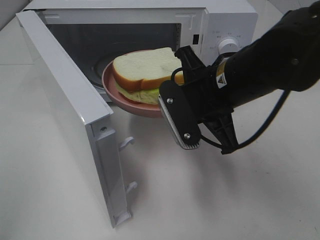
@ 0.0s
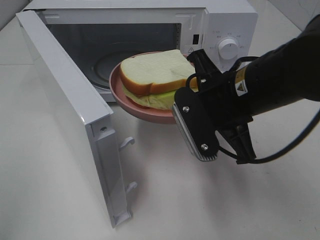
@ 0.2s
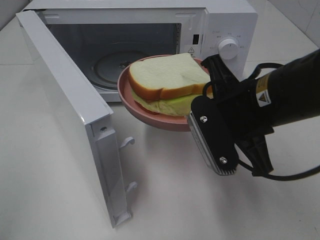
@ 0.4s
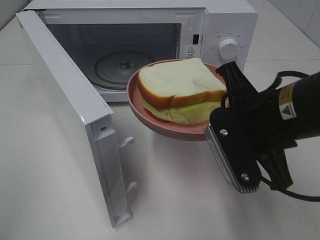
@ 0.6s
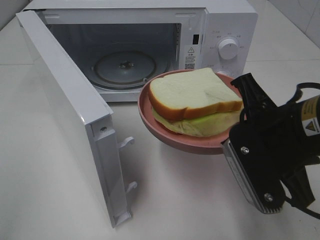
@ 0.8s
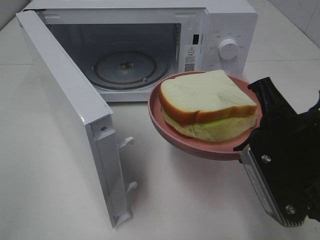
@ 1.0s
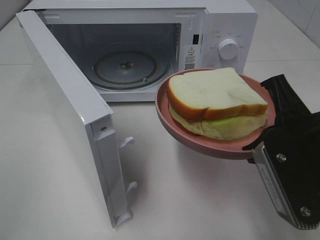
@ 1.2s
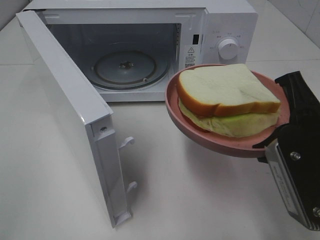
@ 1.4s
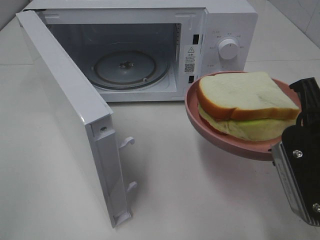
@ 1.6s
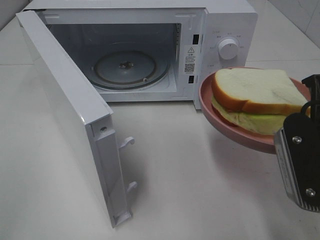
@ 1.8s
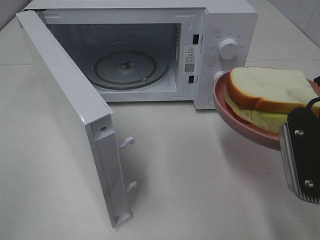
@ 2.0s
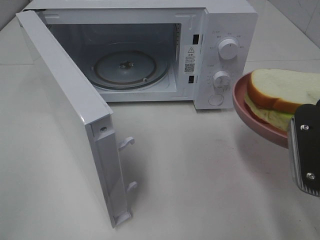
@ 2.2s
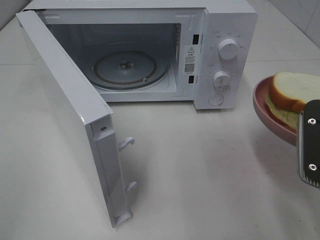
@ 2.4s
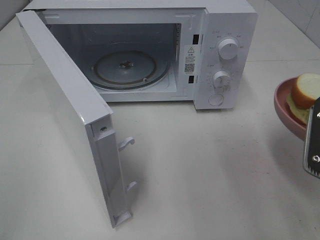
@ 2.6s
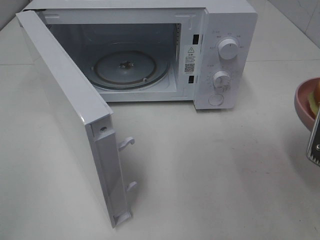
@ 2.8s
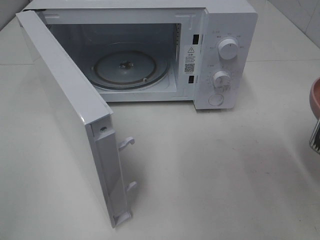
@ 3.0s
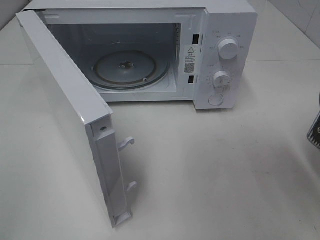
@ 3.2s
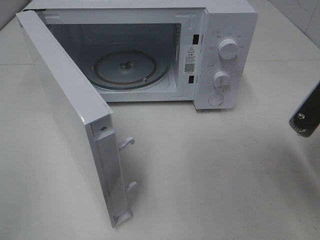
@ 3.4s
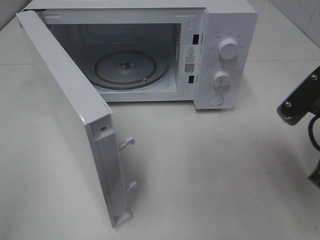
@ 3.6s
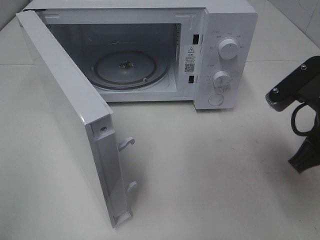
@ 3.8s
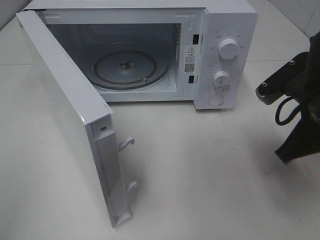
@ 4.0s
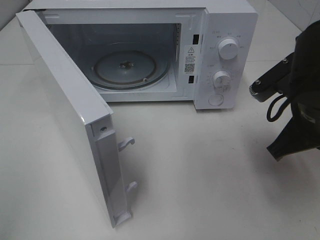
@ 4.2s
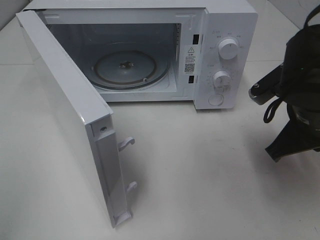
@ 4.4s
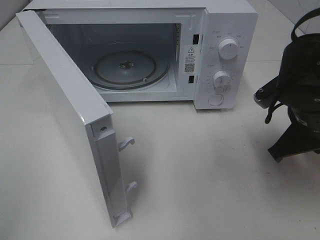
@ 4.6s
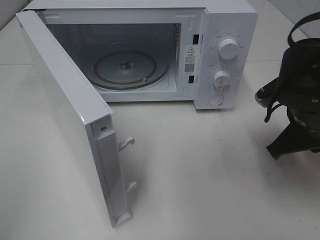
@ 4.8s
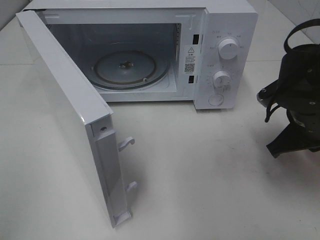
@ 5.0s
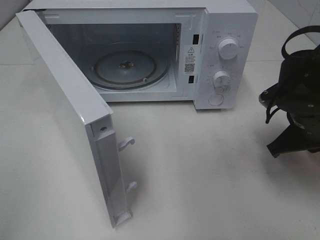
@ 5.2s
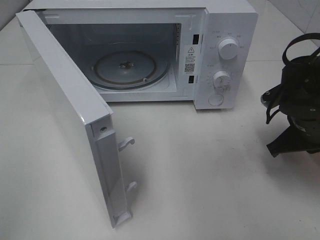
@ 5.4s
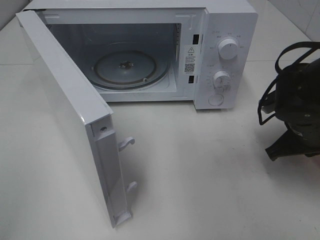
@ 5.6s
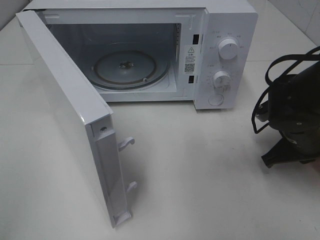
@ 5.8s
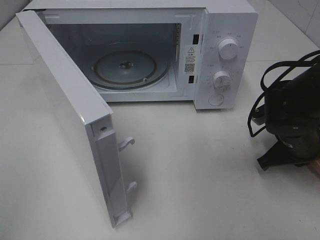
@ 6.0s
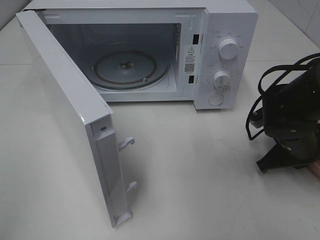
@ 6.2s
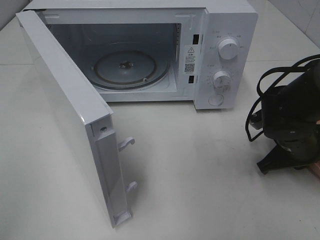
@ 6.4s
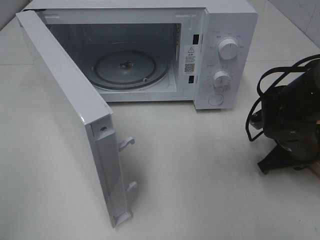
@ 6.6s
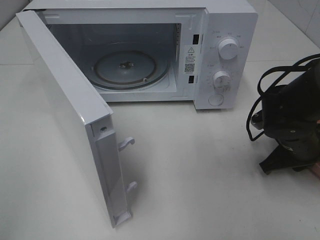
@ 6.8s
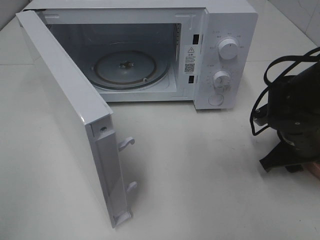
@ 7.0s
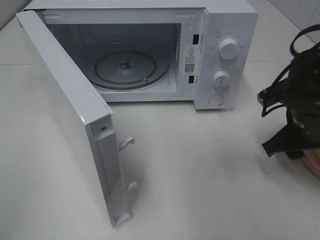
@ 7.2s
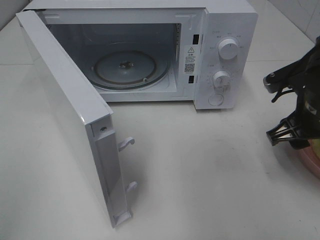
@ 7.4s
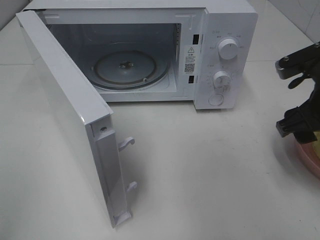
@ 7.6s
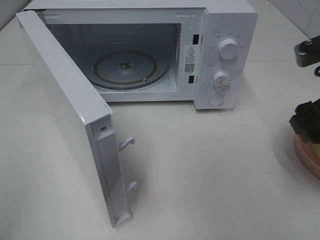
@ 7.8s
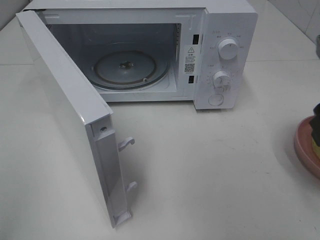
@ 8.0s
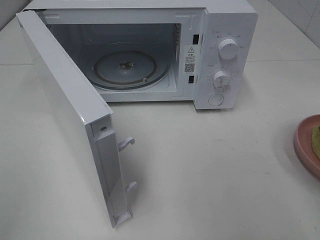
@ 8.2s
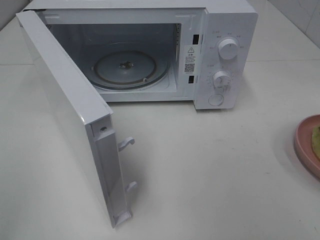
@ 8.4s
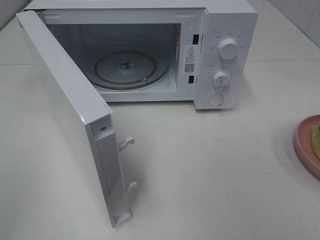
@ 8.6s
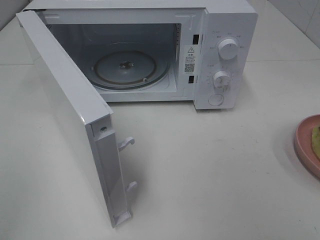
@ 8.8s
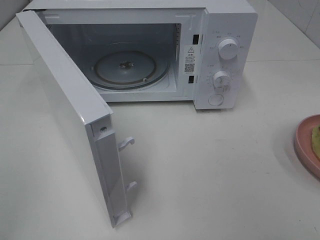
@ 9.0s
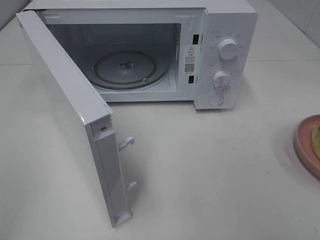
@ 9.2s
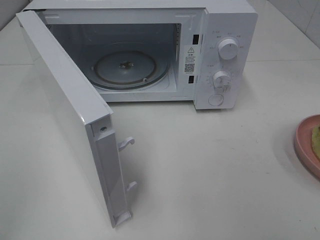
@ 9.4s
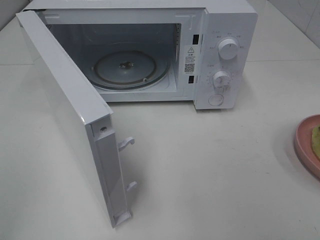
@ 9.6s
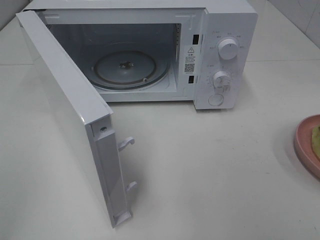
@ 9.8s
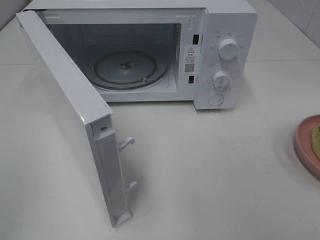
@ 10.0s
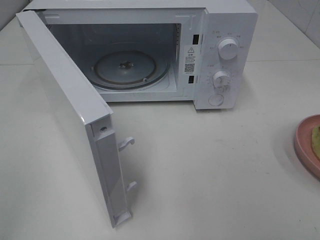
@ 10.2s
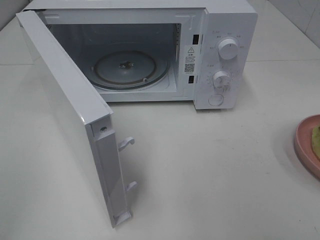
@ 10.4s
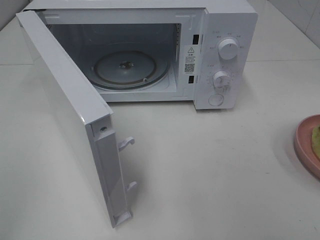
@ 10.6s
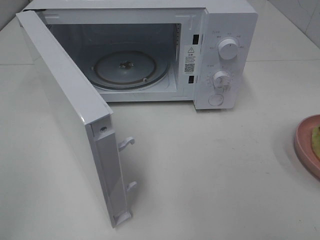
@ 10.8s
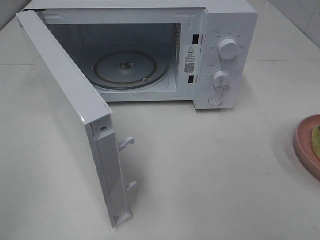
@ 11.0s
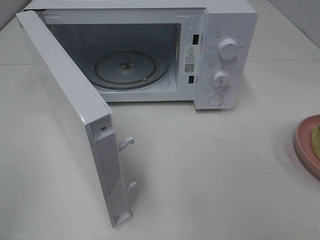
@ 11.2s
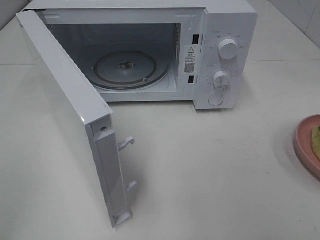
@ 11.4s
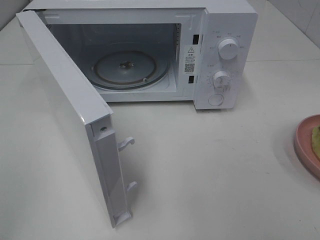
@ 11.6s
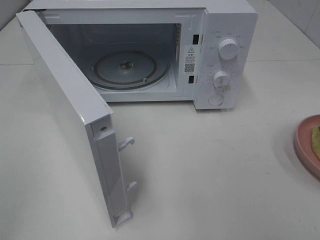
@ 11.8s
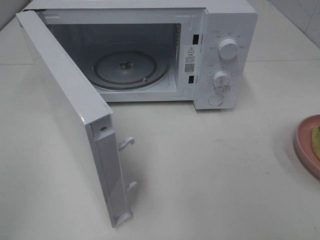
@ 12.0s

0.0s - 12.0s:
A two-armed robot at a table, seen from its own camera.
Task of the whole recording: Heat Sandwich.
Step, 0.0s - 7.2s: Right hand: place the plate on the table.
0.0s - 1.6s: The right gripper is displaced backward and to the right by some 15 cm.
3.0s - 4.4s: The right gripper goes some 10 cm forward and to the left.
4.4s - 6.0s: The right gripper shifts roughly 10 cm downward.
6.0s - 7.6s: The right gripper goes some 15 cm upward, and opens.
7.6s - 9.0s: The right gripper goes approximately 25 cm backward and upward.
10.4s - 12.0s: Both grippers stay about where they are.

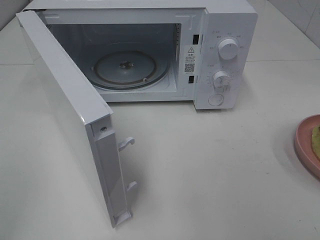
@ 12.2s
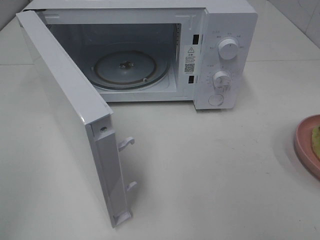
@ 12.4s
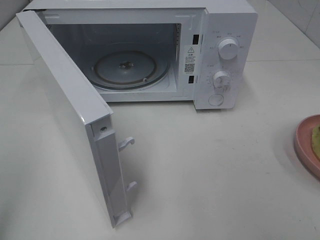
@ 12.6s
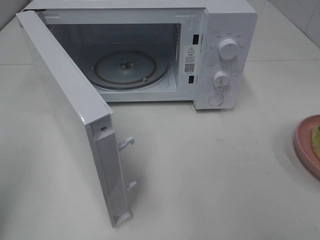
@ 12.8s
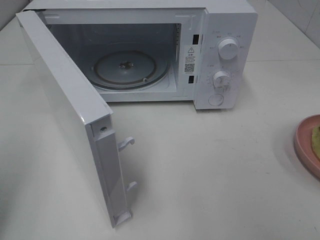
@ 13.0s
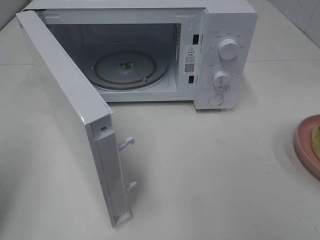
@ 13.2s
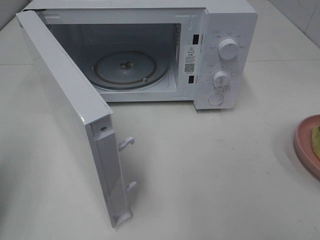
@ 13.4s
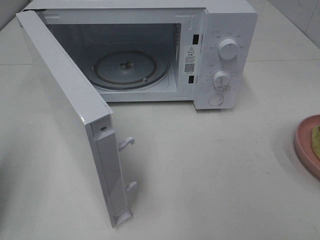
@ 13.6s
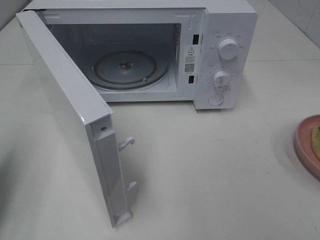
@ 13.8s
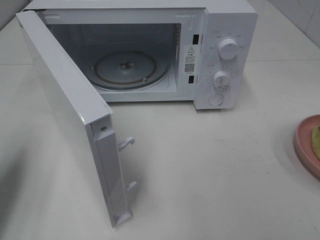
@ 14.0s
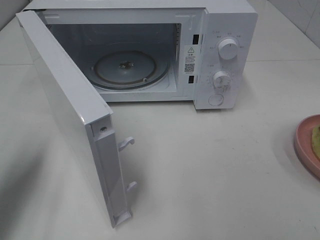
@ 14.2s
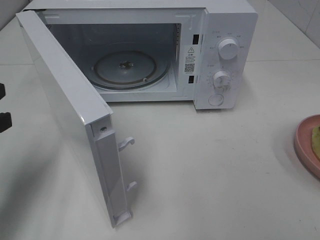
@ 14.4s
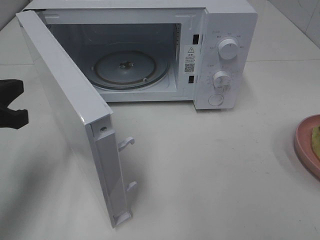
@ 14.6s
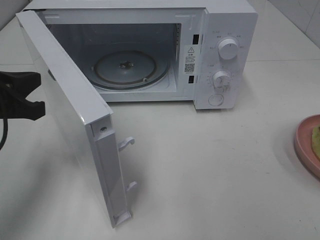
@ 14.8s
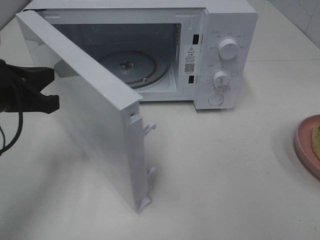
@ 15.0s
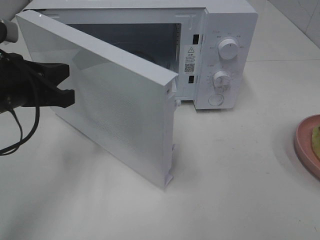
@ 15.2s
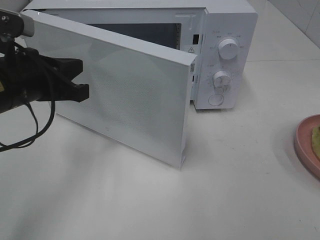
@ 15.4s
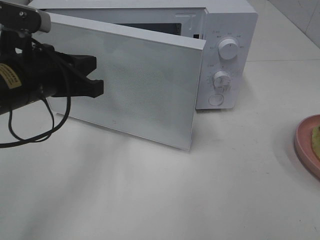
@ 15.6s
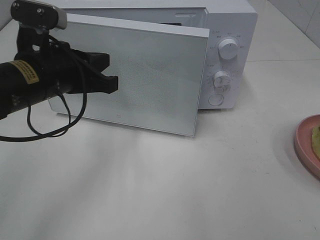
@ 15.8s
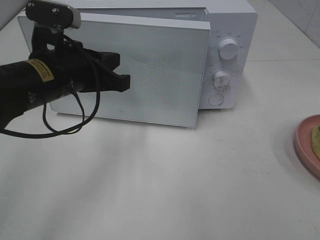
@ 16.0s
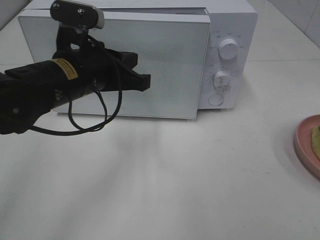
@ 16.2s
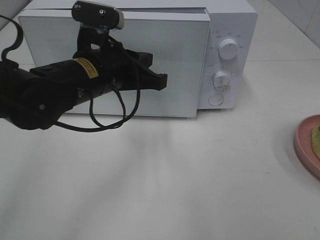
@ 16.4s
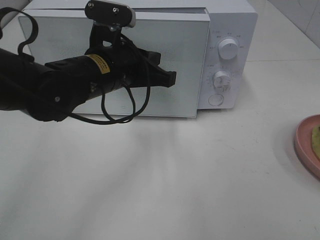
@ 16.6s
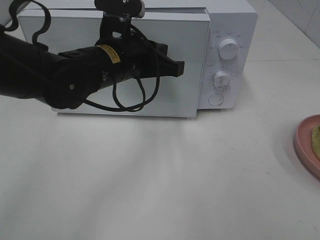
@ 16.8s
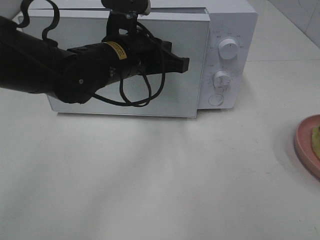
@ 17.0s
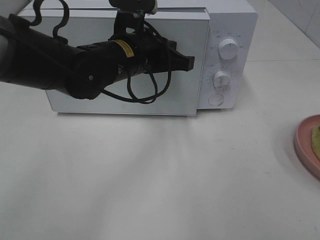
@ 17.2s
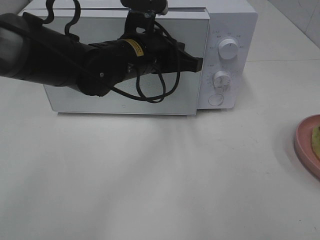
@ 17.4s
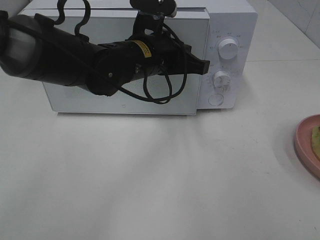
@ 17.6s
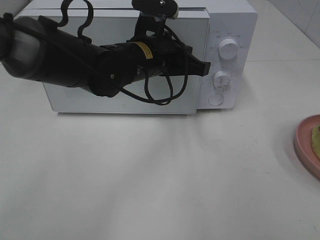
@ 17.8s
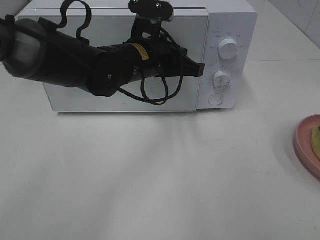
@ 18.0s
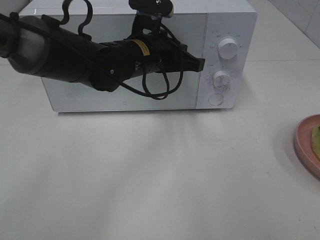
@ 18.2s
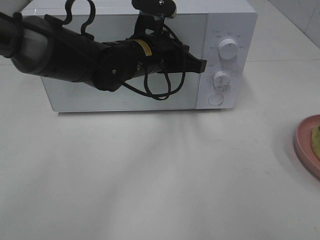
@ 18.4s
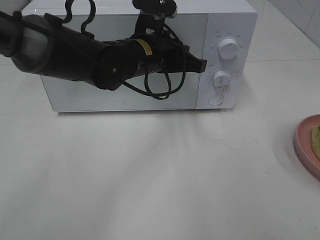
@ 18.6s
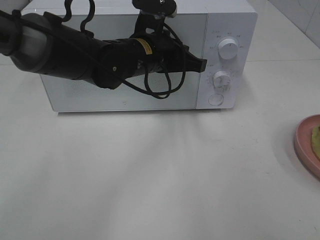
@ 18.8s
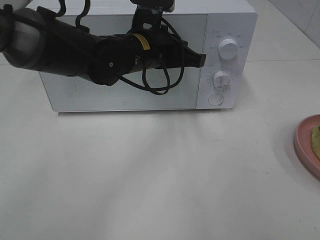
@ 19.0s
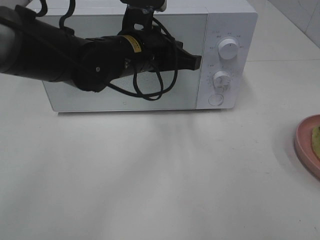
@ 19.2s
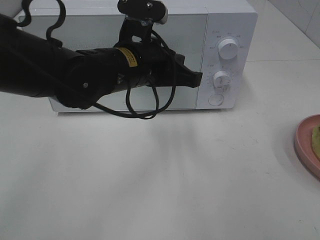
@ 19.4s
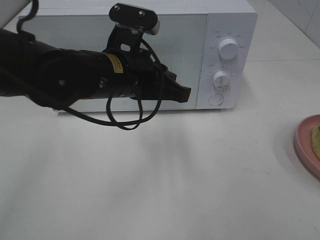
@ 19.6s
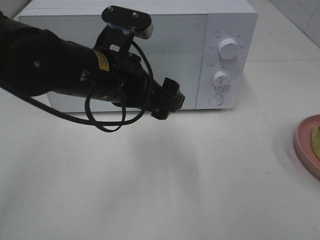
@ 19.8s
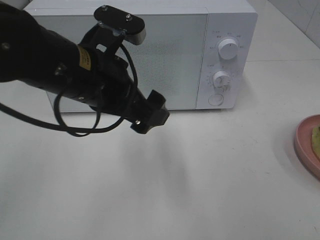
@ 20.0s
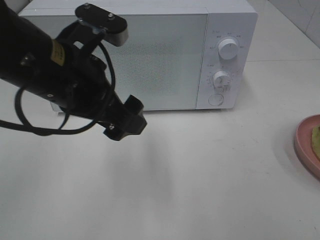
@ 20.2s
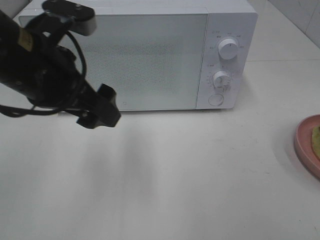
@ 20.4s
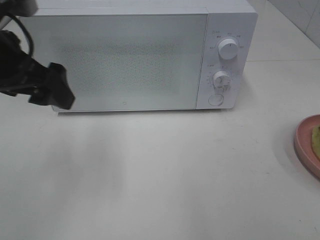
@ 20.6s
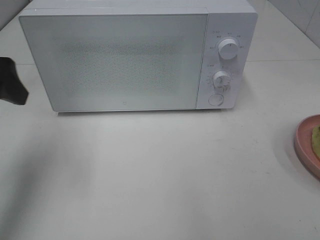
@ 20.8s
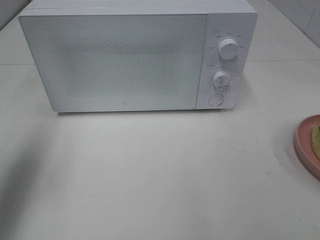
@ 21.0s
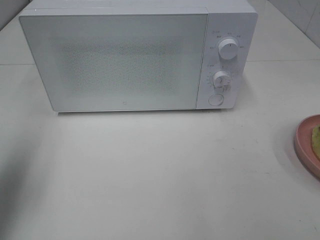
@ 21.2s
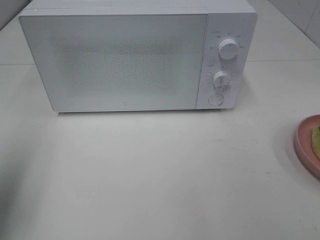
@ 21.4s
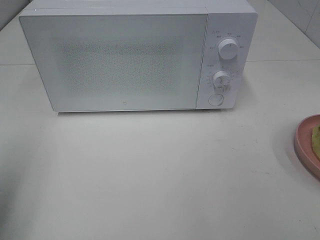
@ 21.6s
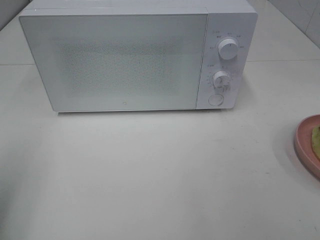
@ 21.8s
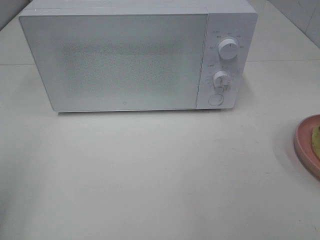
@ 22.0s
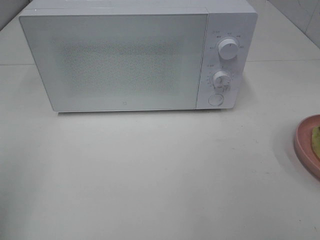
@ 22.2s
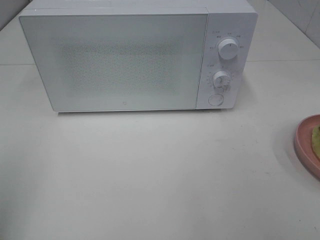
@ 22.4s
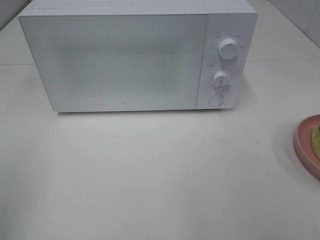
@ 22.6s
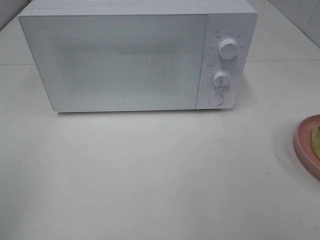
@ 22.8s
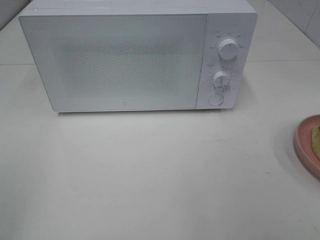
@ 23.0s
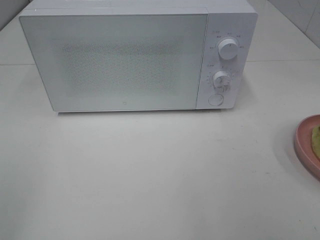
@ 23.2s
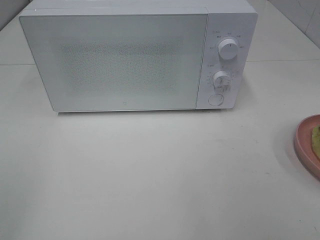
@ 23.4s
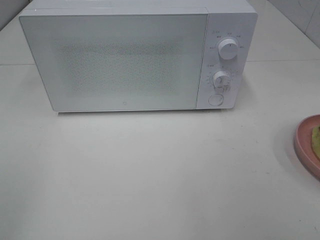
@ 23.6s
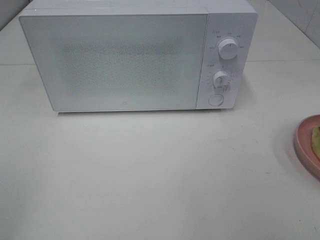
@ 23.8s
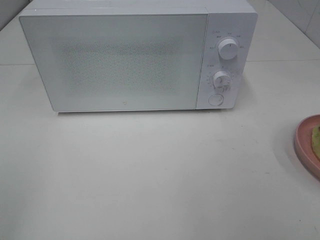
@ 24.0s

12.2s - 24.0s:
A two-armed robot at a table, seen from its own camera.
Task of the whole recording: Heat Sandwich.
Step, 12.2s - 19.6s: Left hand: close the microwave door.
12.2s - 13.6s: The left gripper shifts roughly 15 cm forward and downward, and closes its fingers.
13.6s - 15.2s: The left gripper is displaced to the right and forward by some 15 cm.
15.2s - 16.6s: The left gripper heads to the right, covering roughly 15 cm.
16.6s - 18.2s: The left gripper shifts some 5 cm forward.
18.2s - 19.6s: The left gripper heads backward, covering roughly 10 cm.
19.6s - 21.0s: The left gripper travels to the left by some 25 cm, and opens its fingers.
21.0s - 22.6s: The left gripper travels backward by some 15 cm.
